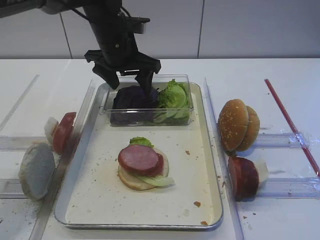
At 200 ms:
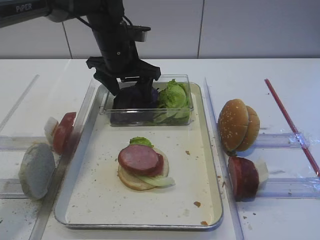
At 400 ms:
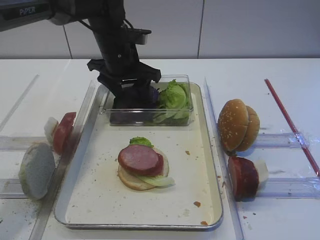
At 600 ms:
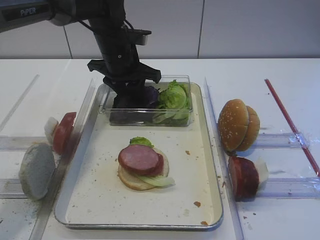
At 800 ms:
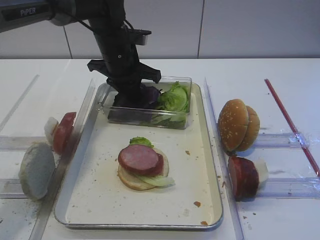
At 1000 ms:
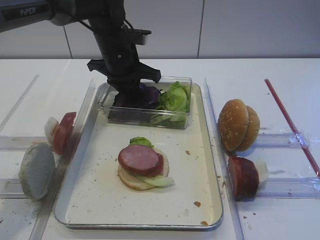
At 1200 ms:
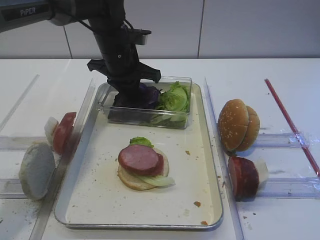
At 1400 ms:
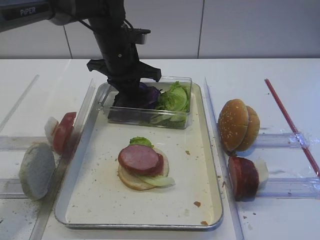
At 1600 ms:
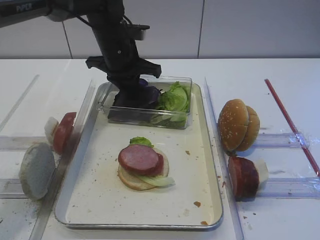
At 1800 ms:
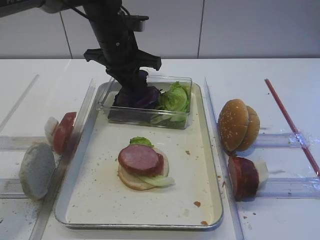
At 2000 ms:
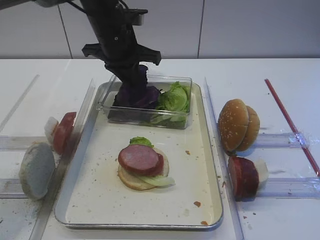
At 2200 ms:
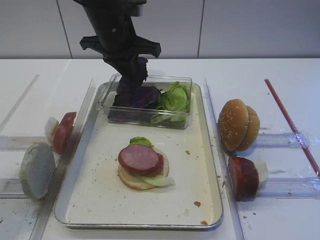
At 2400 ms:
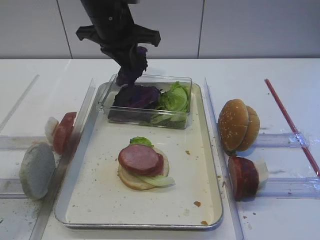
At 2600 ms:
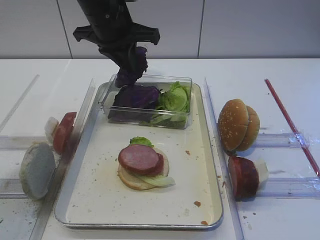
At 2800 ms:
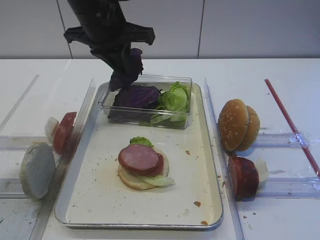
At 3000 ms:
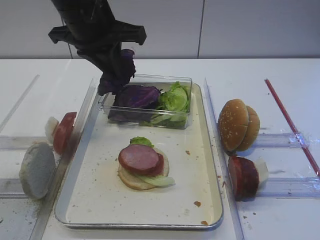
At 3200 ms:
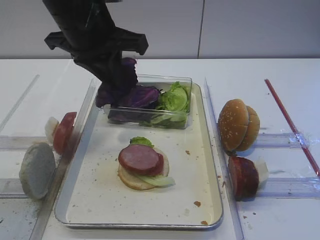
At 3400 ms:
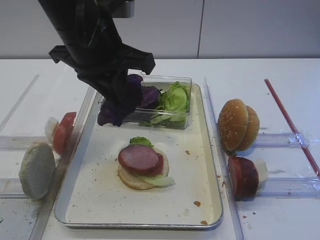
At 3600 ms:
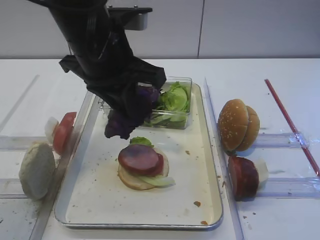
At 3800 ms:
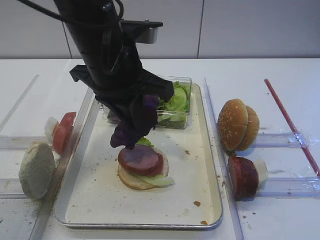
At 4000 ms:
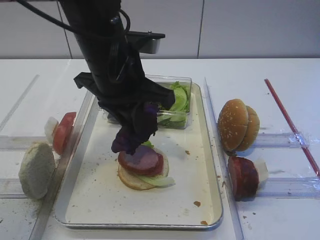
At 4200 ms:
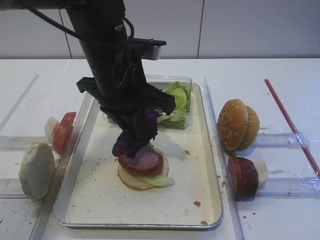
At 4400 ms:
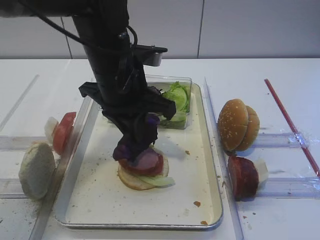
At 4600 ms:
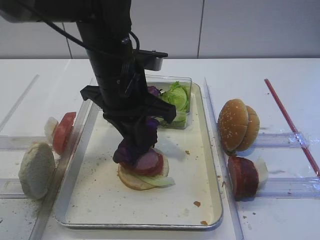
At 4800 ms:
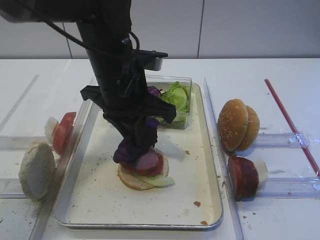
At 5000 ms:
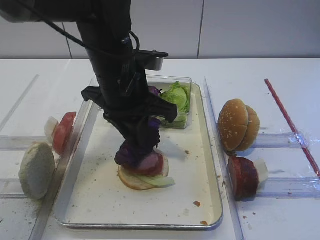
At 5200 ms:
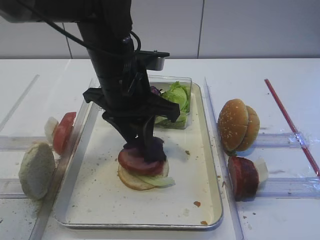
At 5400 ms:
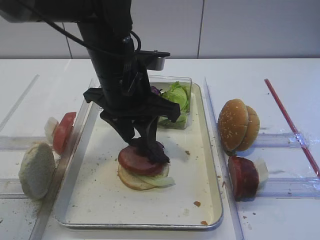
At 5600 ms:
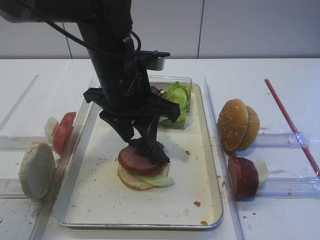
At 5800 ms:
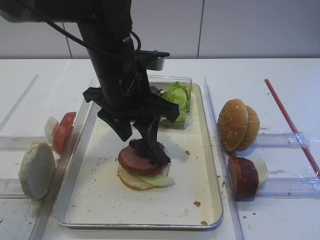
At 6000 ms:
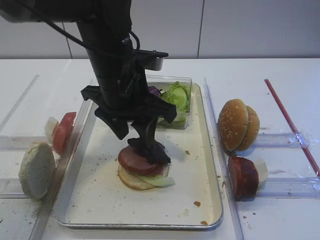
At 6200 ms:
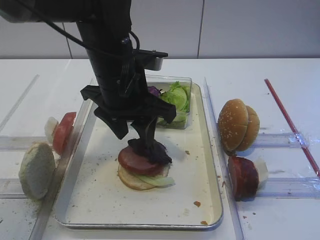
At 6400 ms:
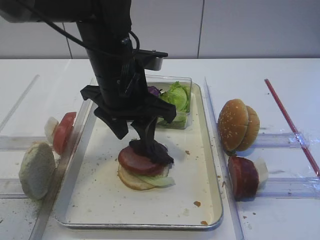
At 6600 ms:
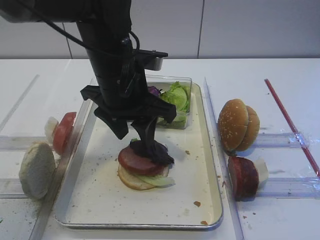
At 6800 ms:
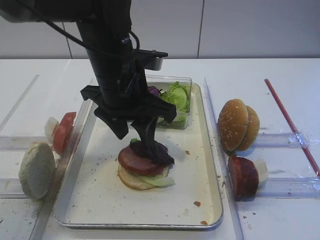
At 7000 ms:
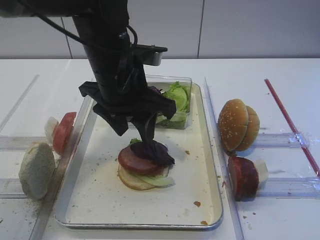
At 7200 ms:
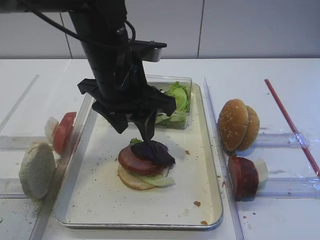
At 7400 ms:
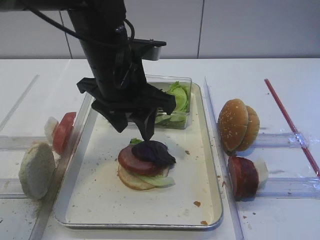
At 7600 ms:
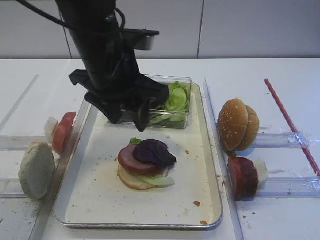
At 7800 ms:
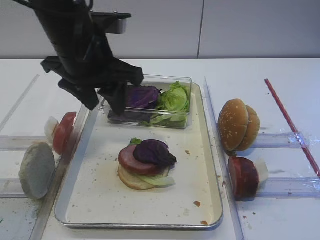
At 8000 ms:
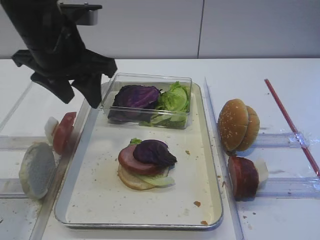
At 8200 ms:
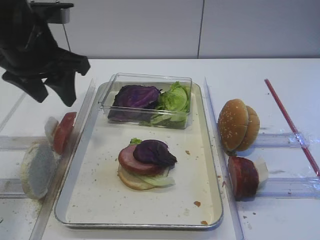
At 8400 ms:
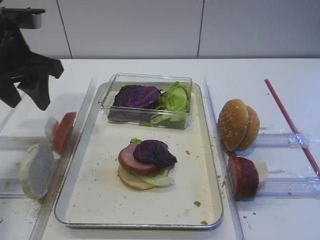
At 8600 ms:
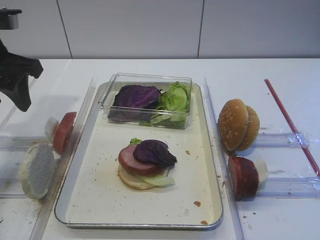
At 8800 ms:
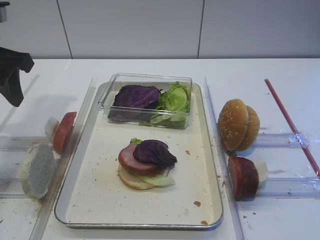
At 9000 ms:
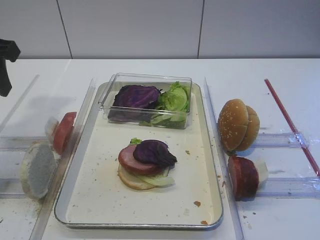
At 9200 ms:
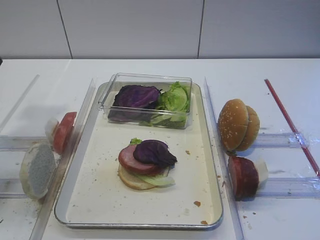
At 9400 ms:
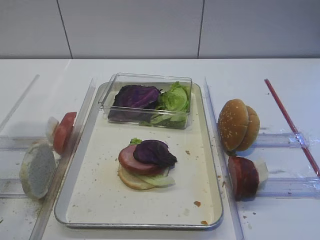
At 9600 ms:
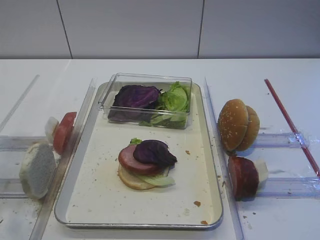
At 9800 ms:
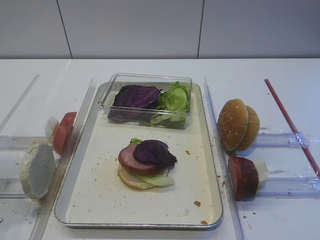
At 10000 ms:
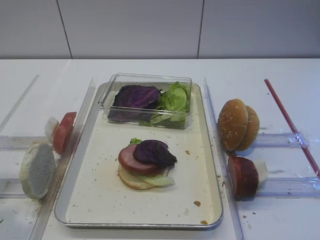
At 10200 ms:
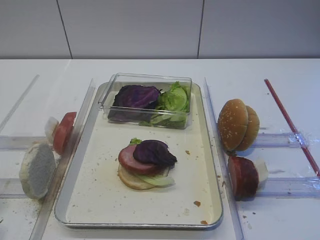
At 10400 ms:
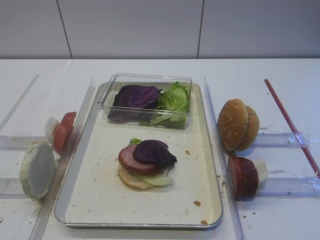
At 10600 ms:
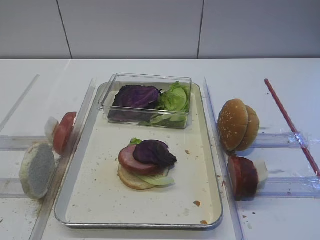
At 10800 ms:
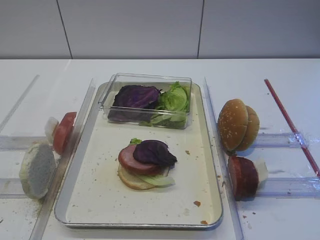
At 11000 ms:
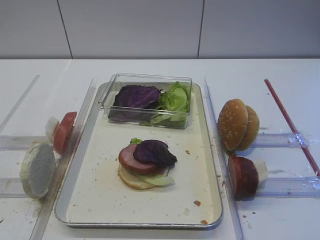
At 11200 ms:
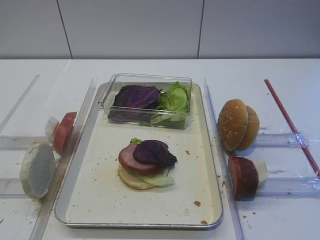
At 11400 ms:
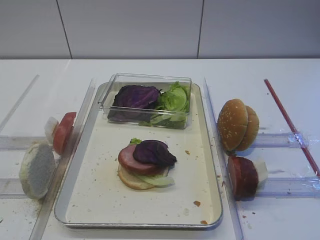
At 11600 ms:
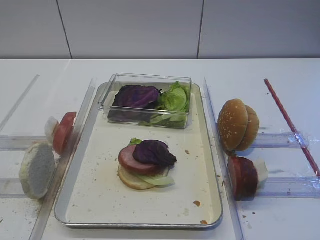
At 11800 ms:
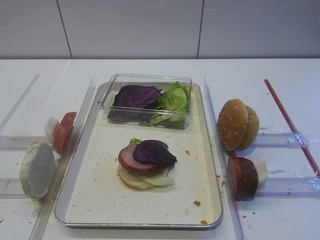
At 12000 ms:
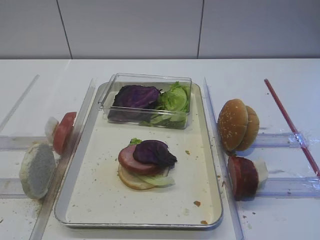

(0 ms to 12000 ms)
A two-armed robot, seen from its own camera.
Step, 0 ms - 2400 ms: Pick up the purple cabbage with the left gripper.
Step, 2600 ms - 7400 ms: Place the purple cabbage on the cutlet with the left gripper.
0 ms - 1600 ms: The left gripper closes its fingers.
1600 ms - 3000 ms: The left gripper travels upward and backward by about 10 cm.
3000 ms - 4400 ms: The left gripper moves backward, downward and to the right, roughly 10 cm.
4400 ms - 6000 ms: The left gripper opens up.
6000 ms - 7600 ms: The grippers stay close to where they were, moving slightly.
7600 ms - 9000 ms: The left gripper travels to the left by some 20 cm.
9000 ms - 10400 ms: The left gripper moves backward, some 25 cm.

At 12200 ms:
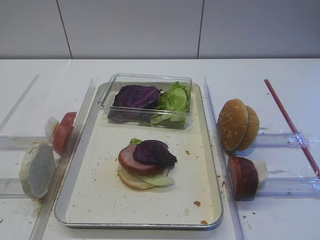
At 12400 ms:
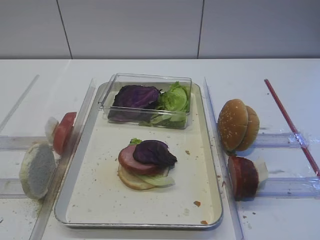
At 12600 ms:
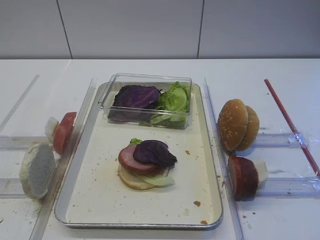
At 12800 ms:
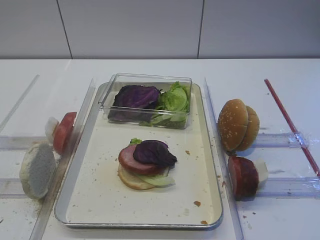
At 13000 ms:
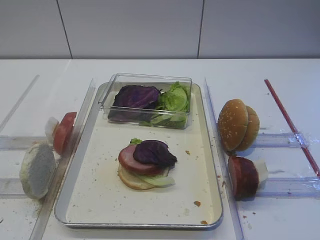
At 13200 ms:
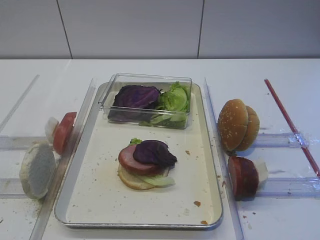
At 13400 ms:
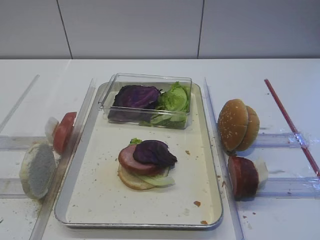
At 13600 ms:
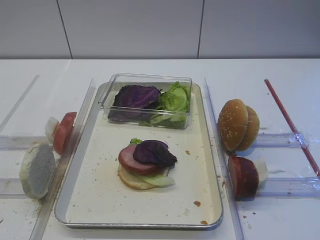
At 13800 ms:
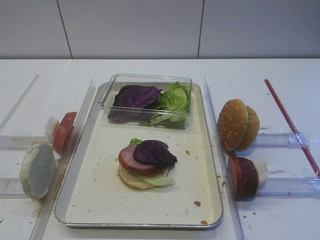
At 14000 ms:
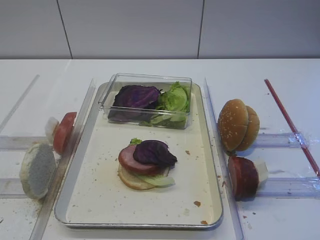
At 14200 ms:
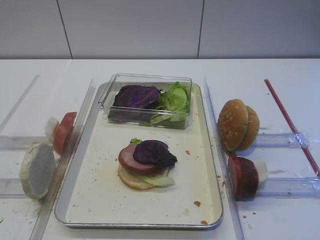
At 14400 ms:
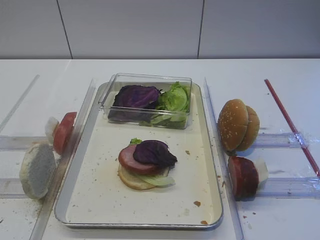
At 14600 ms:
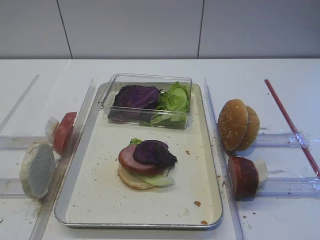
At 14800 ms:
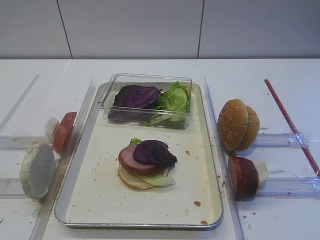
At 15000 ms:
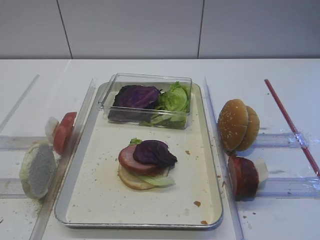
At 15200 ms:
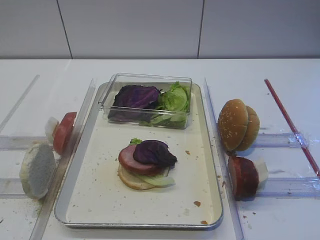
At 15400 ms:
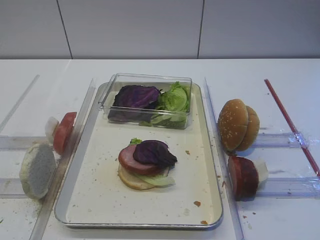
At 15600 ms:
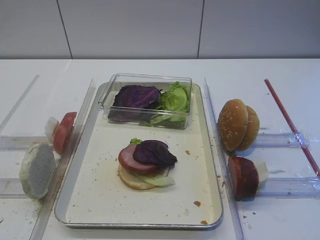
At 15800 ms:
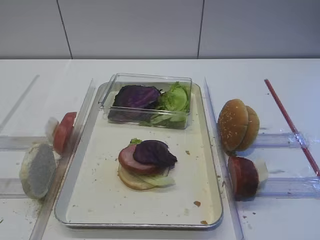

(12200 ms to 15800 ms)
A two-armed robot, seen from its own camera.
12200 ms - 15800 ms: Neither gripper changes place.

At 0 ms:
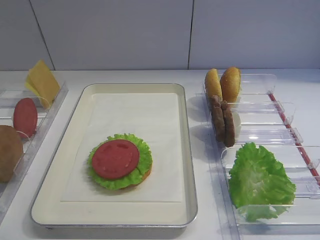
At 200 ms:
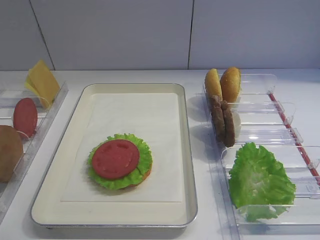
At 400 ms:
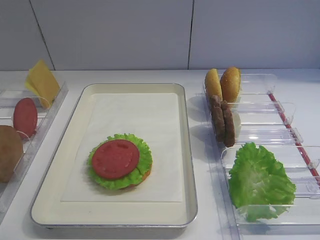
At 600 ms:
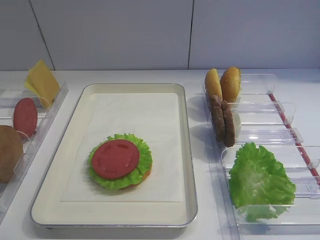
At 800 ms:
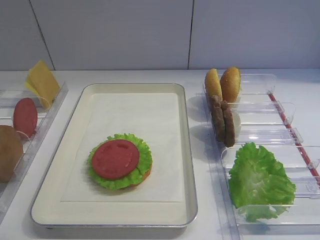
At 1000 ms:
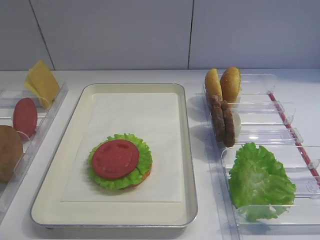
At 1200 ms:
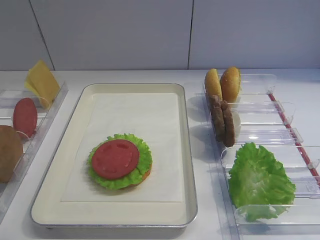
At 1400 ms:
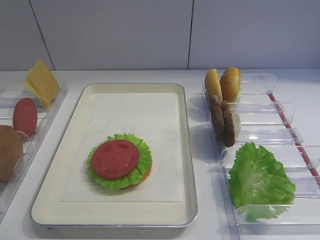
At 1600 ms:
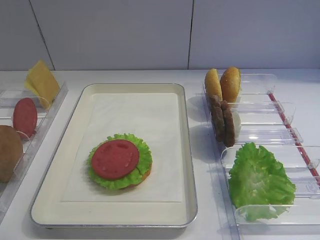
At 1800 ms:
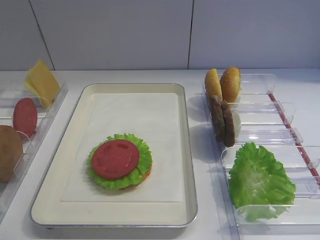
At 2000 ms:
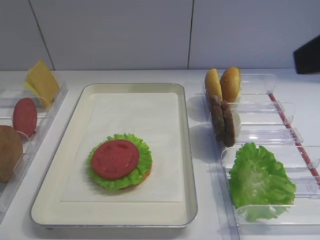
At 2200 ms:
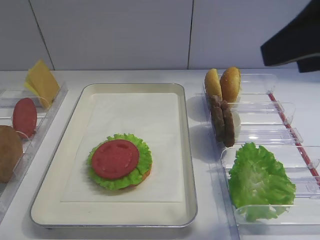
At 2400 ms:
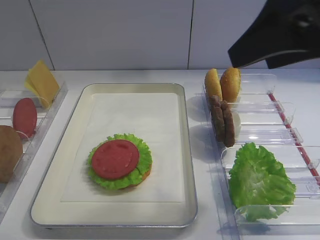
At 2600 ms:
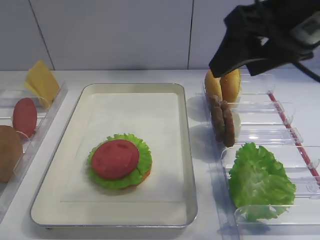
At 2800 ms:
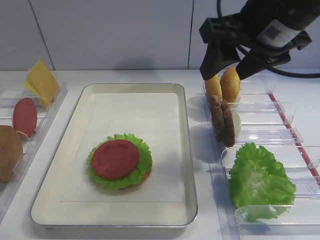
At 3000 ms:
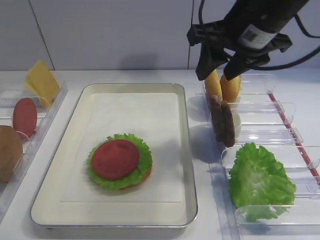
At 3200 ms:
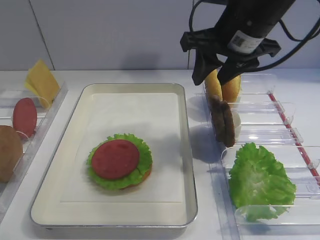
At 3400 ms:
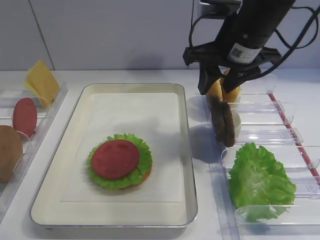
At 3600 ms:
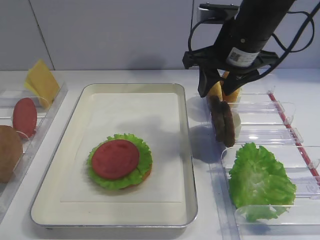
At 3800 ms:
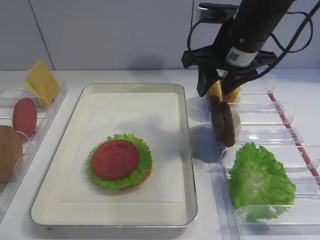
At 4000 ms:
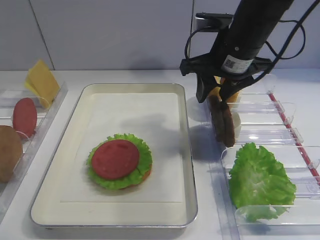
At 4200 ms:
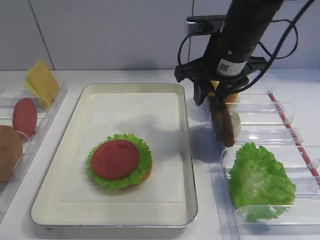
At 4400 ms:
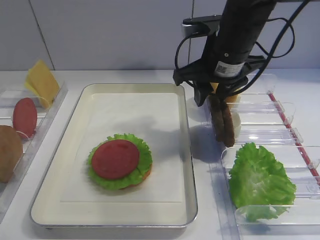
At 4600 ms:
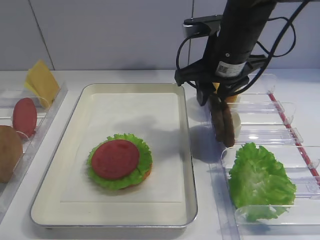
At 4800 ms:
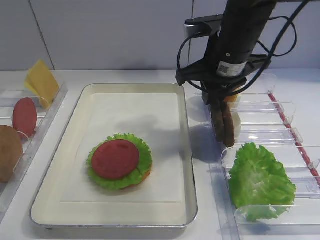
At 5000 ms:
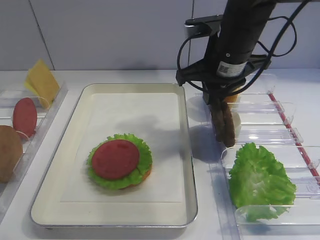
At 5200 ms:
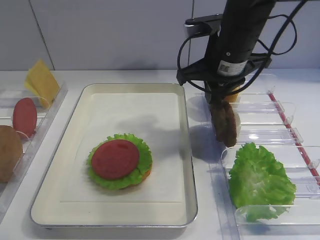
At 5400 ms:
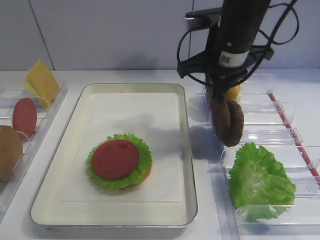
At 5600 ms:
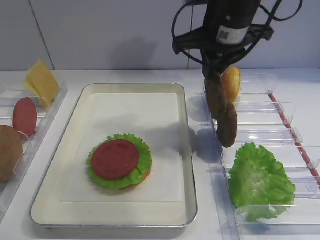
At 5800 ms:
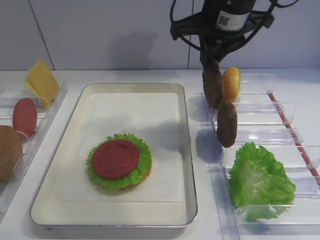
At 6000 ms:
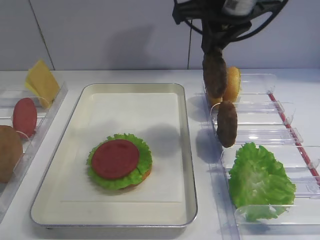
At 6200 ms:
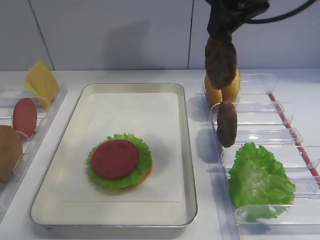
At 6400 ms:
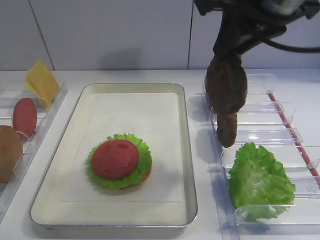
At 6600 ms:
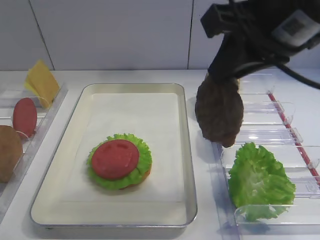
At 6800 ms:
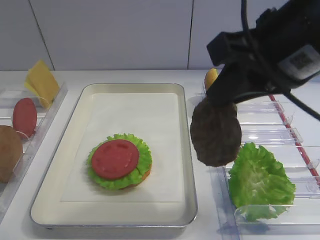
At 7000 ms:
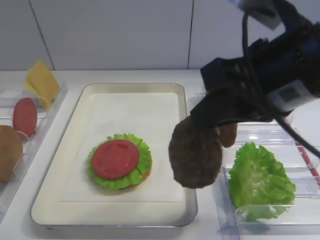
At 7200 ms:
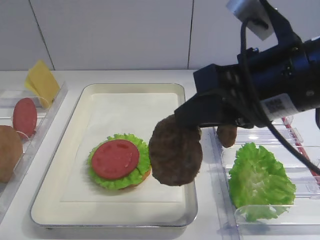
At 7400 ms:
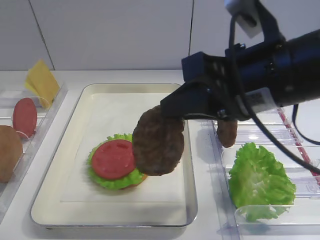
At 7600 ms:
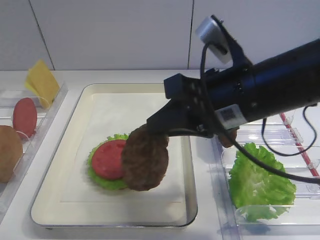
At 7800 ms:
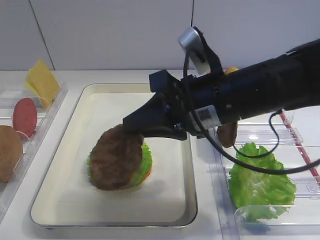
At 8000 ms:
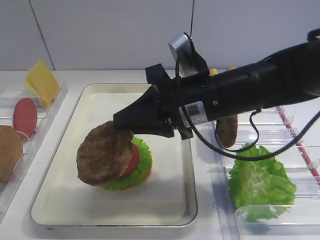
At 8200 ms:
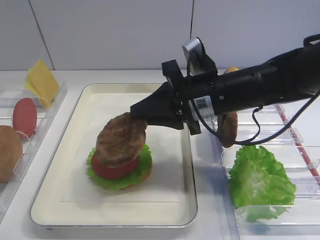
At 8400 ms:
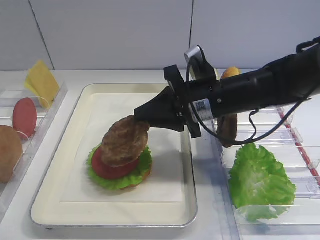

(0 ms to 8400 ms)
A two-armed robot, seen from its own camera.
Step, 0 ms - 5800 ms: Pick up the cutlet with the right gripper.
1400 ms - 2800 ms: The right gripper moves forward and to the left, about 30 cm.
2800 ms - 4200 ms: The right gripper moves downward and forward, some 10 cm.
4200 ms - 5600 ms: The right gripper closes.
5600 ms - 7000 ms: The right gripper heads backward, covering roughly 15 cm.
7000 ms - 8400 ms: The right gripper heads downward and forward, covering roughly 15 cm.
